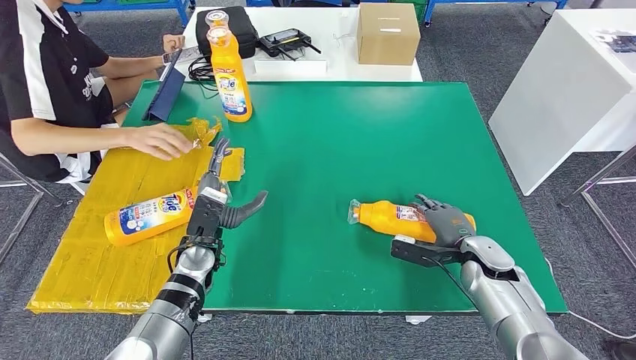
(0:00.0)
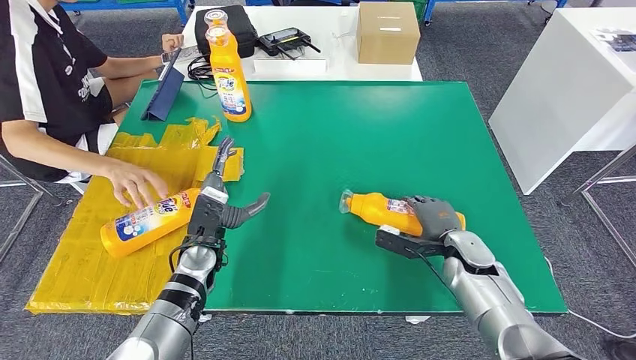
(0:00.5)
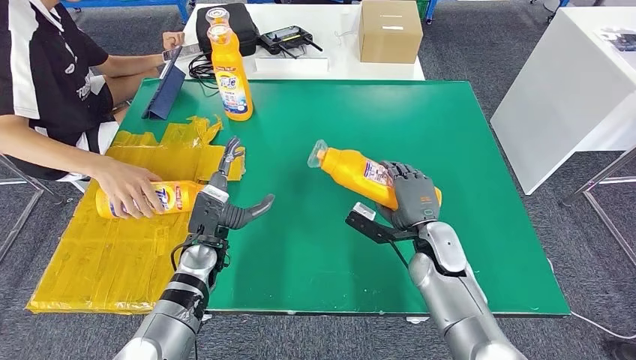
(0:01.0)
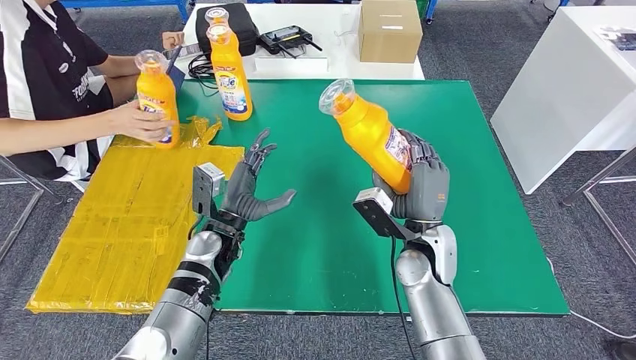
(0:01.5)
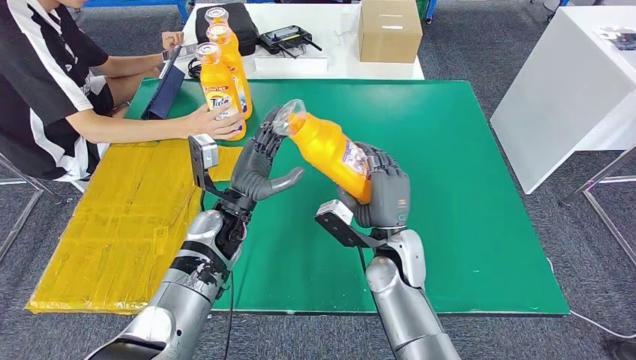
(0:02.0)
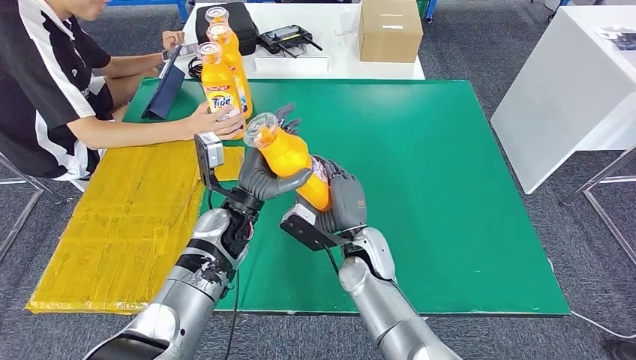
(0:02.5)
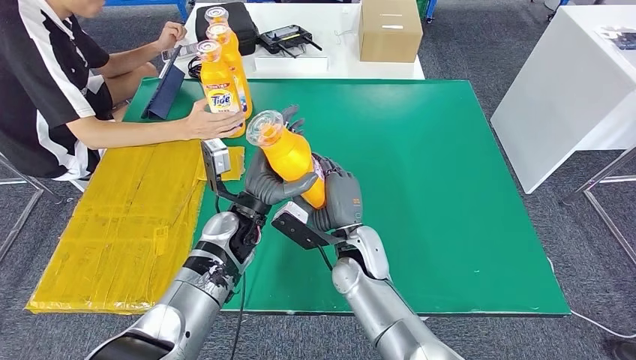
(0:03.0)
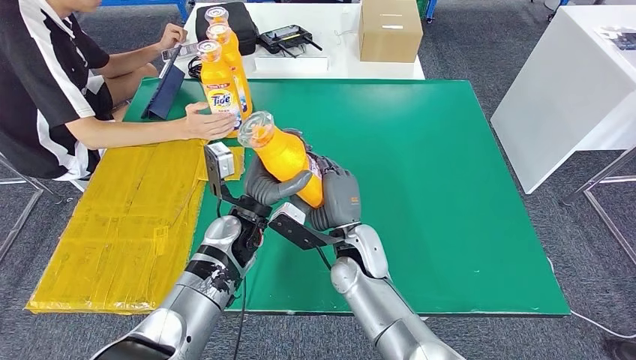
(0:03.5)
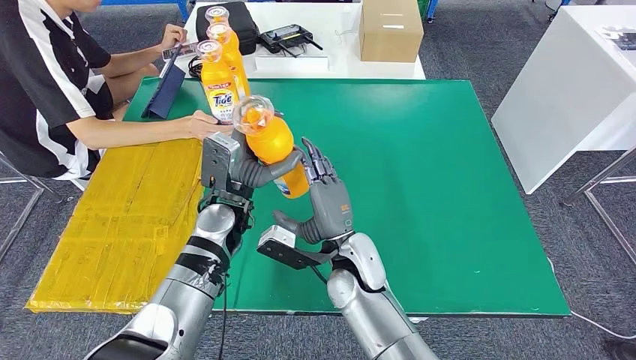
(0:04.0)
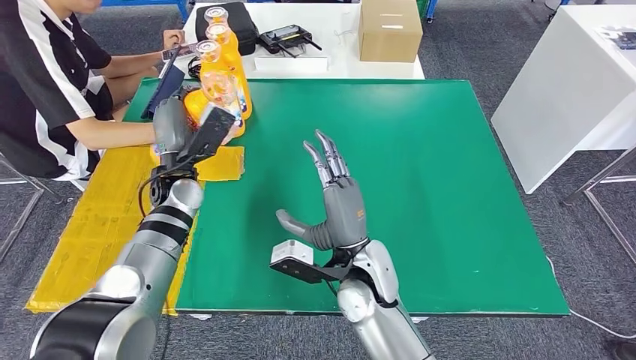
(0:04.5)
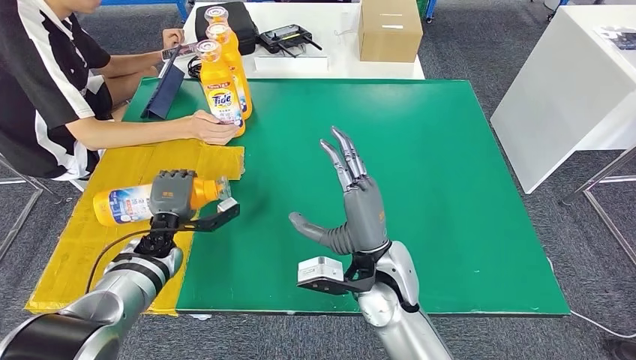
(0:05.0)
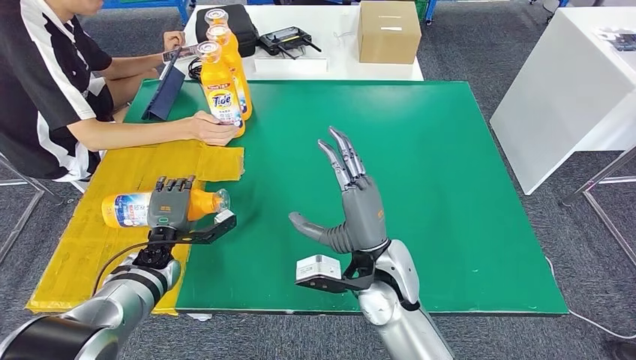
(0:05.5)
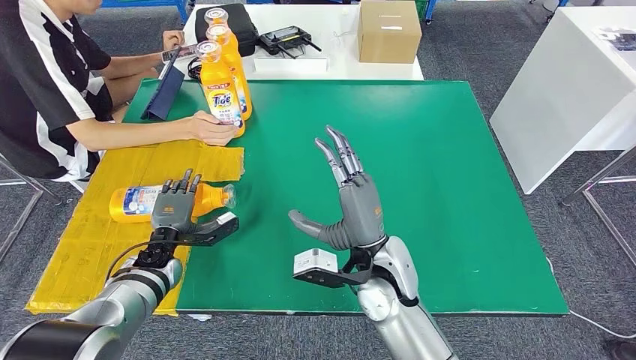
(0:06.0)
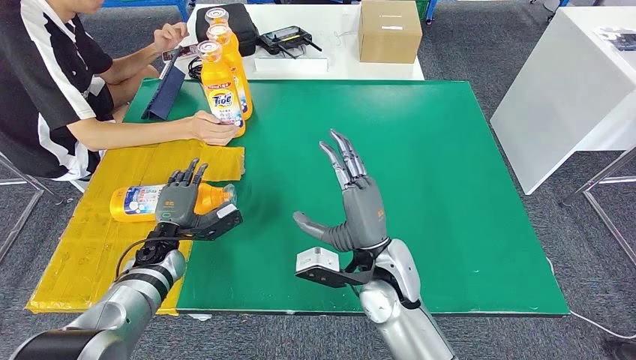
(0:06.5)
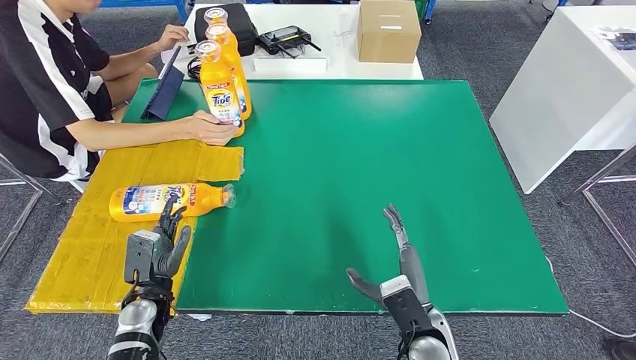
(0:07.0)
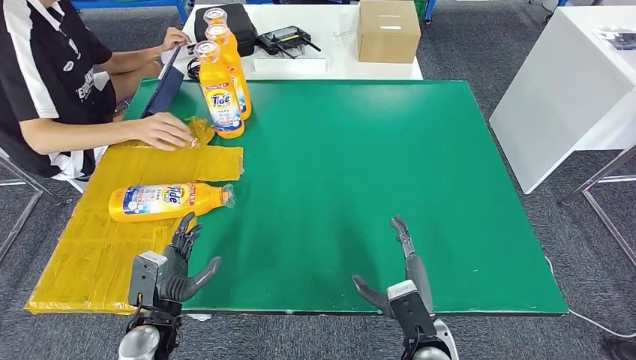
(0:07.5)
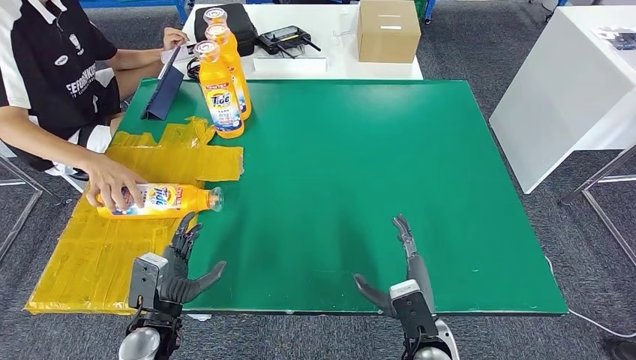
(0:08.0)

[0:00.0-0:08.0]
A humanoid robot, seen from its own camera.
Step, 0:01.5 to 0:08.0: Flip the bottle to face forward.
0:02.0 to 0:04.0: The right hand is displaced to the left by approximately 10 cm.
